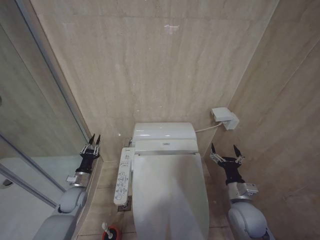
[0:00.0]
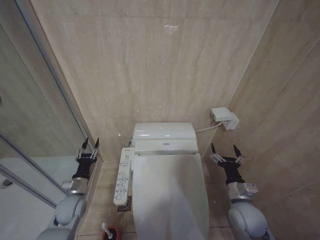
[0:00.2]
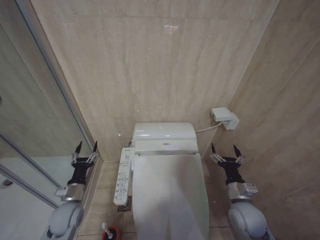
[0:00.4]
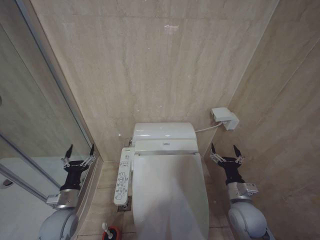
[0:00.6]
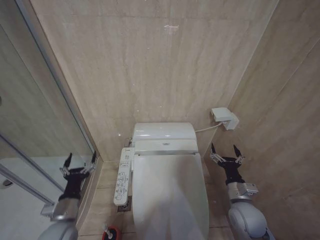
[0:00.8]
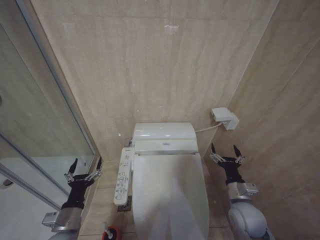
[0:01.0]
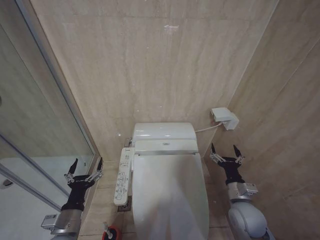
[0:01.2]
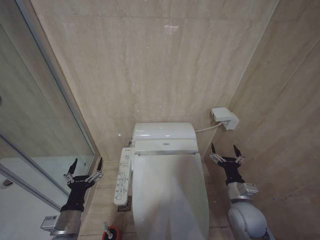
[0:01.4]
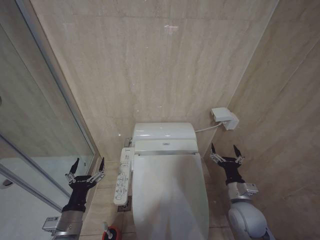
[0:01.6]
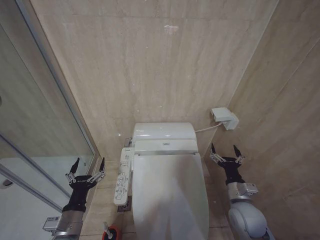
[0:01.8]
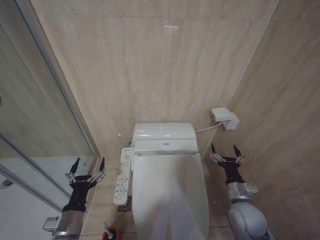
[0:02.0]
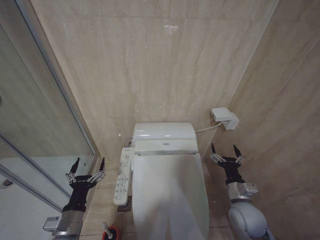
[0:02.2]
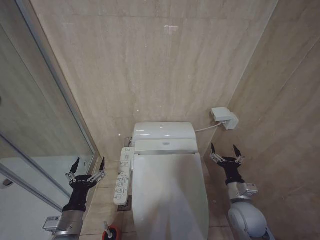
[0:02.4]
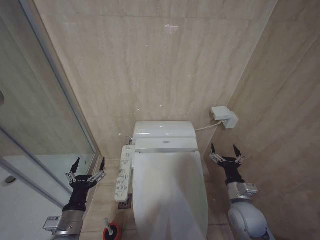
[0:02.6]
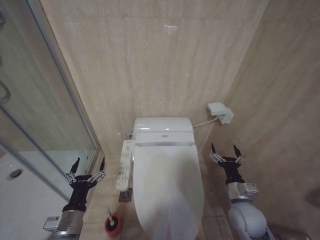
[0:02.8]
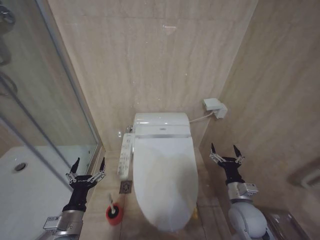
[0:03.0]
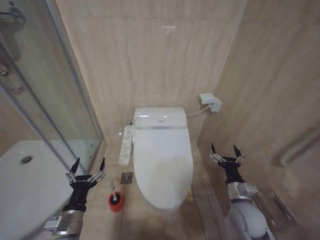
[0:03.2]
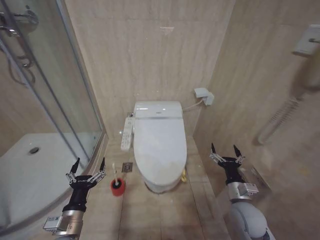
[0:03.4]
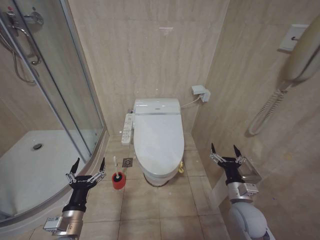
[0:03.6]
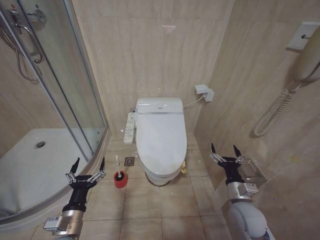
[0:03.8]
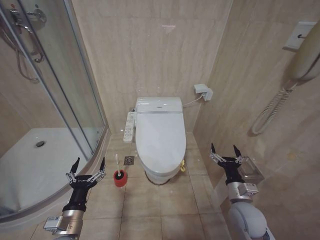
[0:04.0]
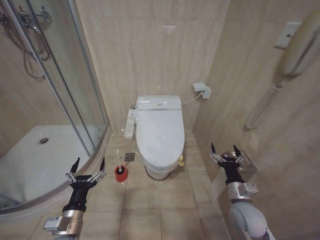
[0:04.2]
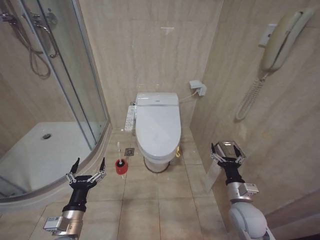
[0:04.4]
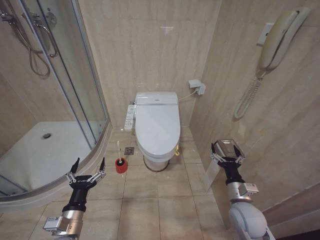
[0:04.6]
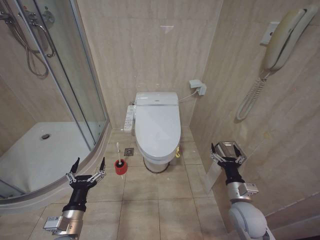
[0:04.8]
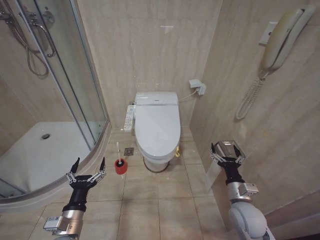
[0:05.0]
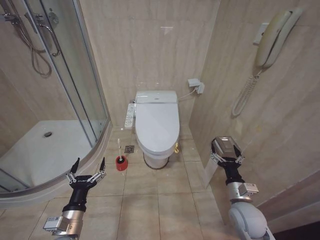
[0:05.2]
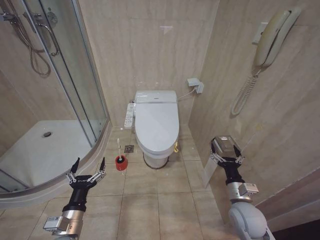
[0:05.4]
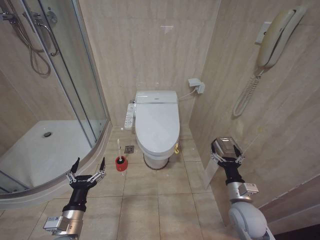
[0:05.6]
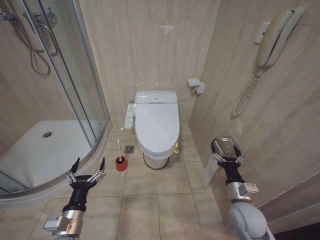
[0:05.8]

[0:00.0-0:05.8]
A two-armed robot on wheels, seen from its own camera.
Task of the whole recording: Open the toilet lid, clean the toilet bowl with a toilet brush, close the toilet lid, and flush.
0:00.0 to 0:01.4: The left gripper moves backward and upward, about 20 cm, and opens.
0:01.4 to 0:02.8: Both grippers stay about where they are.
0:04.4 to 0:05.8: Both grippers stay about where they are.

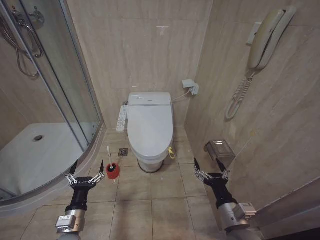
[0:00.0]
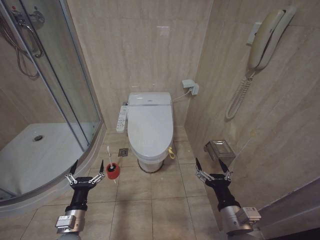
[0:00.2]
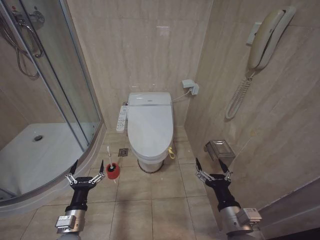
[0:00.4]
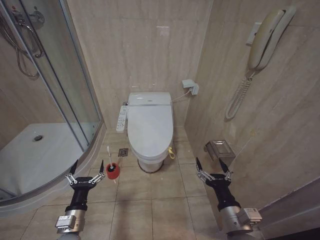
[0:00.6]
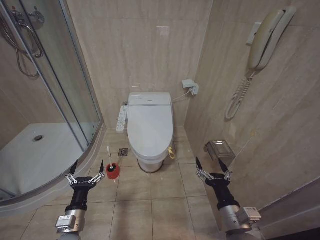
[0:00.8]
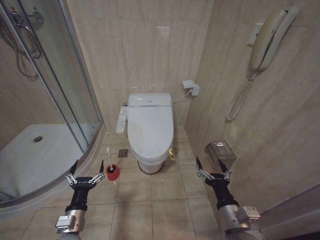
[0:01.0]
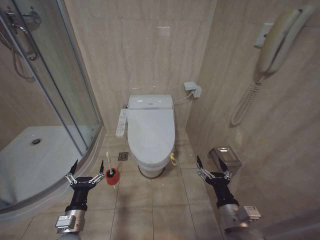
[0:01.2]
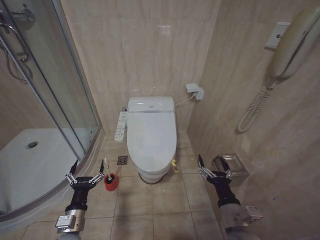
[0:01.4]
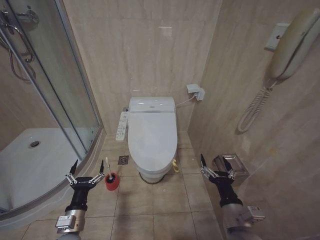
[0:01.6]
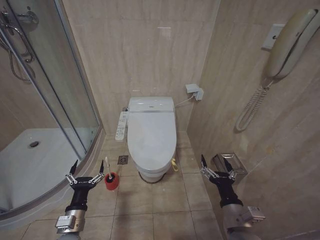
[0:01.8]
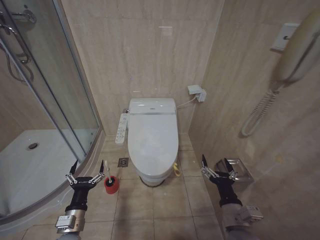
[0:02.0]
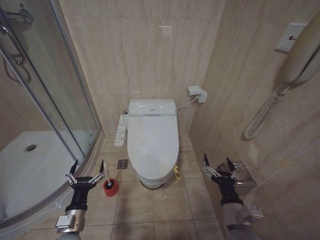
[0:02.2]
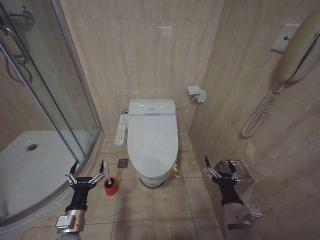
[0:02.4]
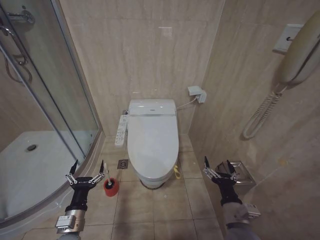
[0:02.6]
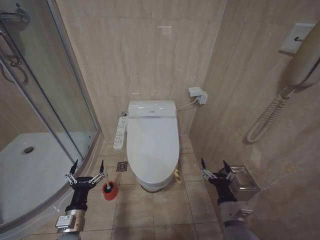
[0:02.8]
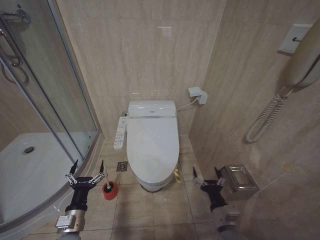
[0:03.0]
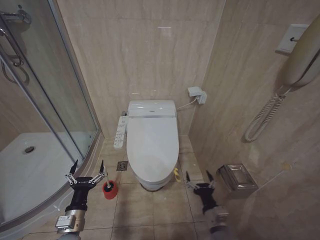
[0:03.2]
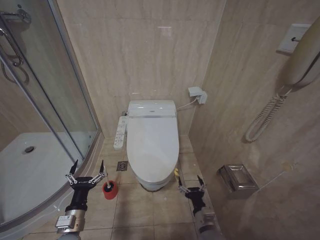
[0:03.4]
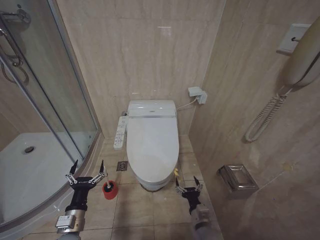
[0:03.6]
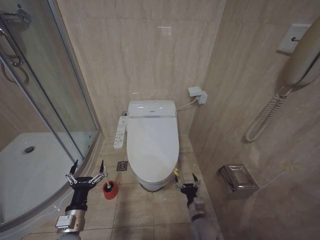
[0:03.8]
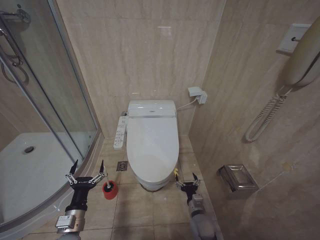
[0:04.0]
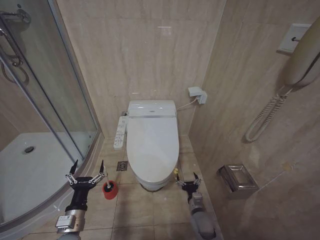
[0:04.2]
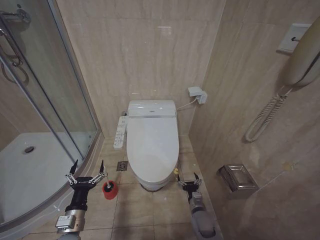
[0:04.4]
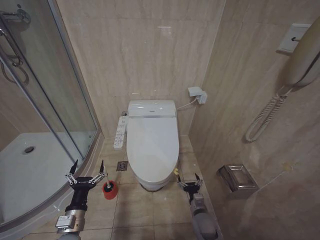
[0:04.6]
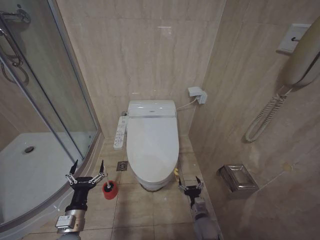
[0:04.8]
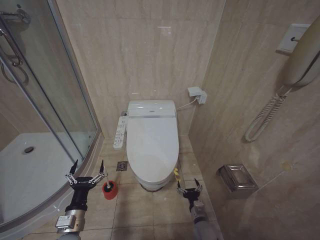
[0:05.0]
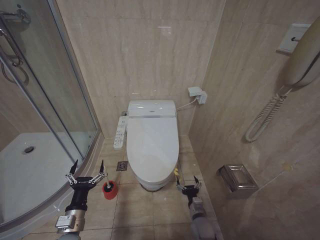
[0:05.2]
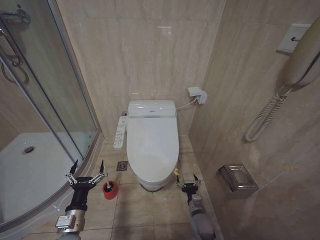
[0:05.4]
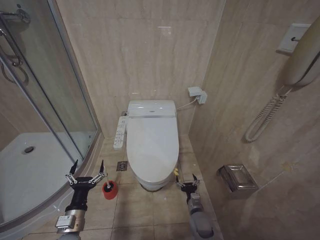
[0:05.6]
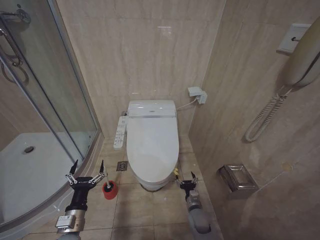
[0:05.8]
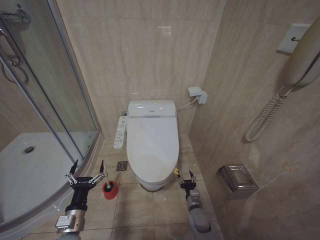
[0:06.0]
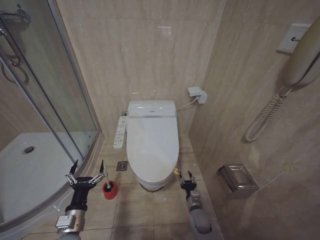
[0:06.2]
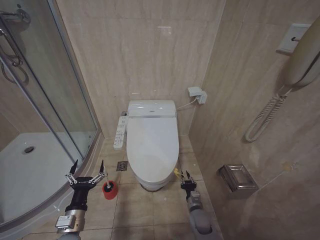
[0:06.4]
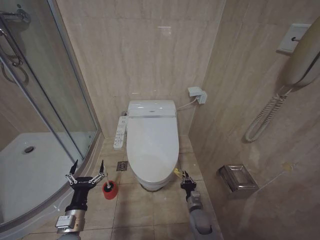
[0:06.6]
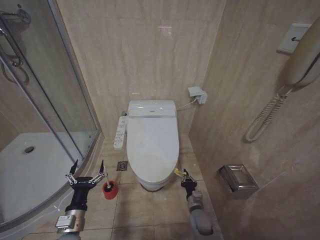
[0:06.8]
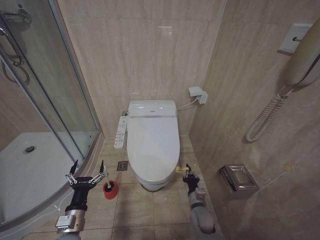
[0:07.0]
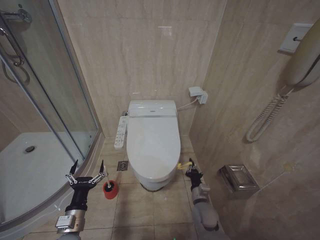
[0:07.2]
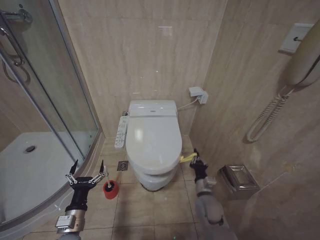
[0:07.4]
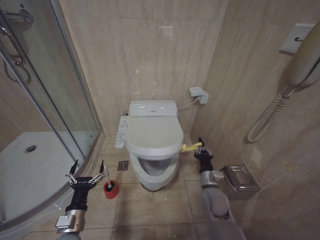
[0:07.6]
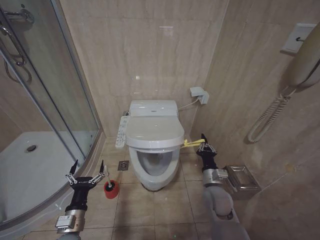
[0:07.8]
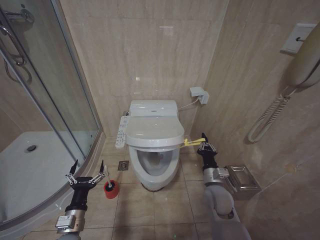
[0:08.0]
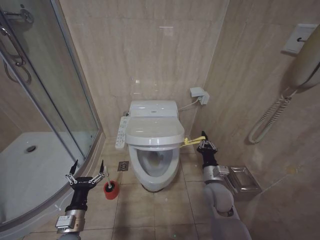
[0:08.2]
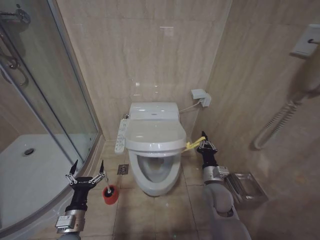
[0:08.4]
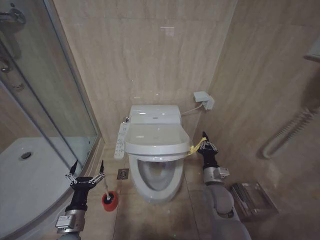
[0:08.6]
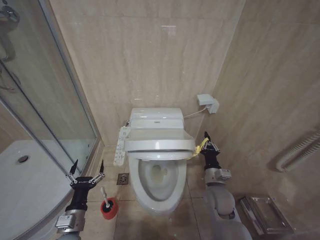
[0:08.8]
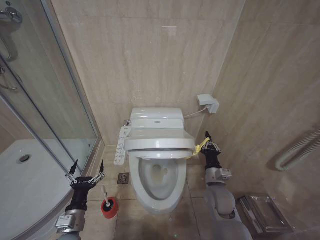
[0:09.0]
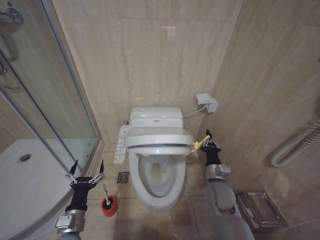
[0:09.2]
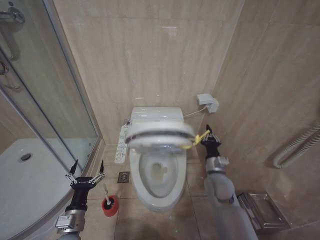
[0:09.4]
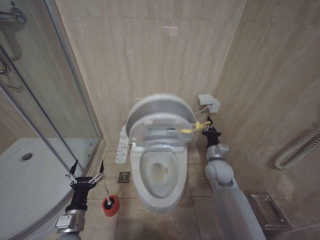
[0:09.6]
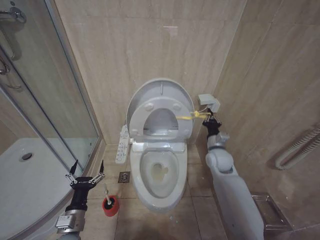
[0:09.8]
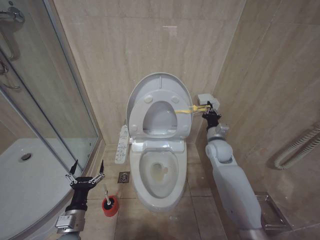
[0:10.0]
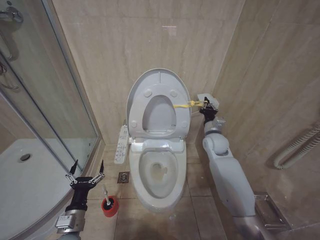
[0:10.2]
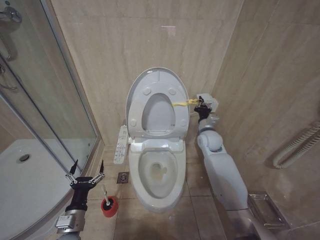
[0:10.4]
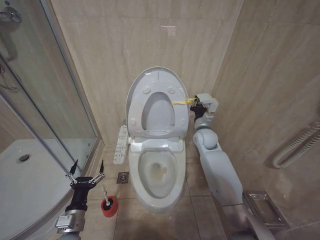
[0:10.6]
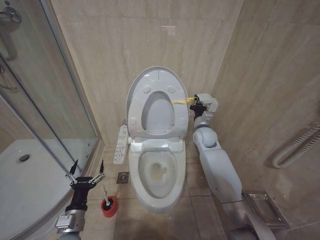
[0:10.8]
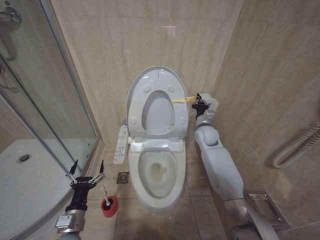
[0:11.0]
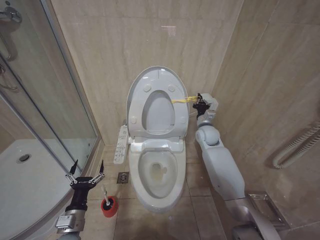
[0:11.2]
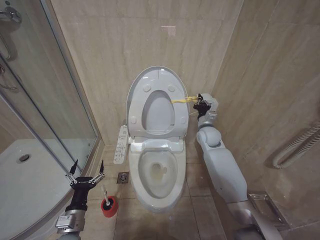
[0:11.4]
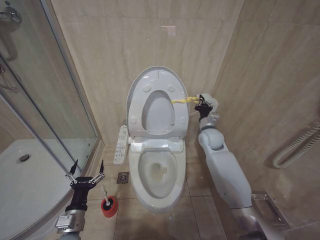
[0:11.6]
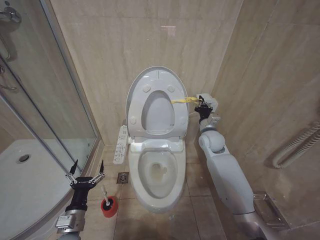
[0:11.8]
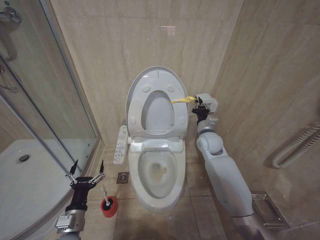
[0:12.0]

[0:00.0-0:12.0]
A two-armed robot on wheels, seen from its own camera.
Task of the whole recording: Open the toilet lid, clean the toilet bowl with a toilet brush, close the toilet lid, and flush.
0:01.6 to 0:03.0: The right gripper shifts some 5 cm downward.
0:03.0 to 0:04.4: The right gripper travels downward and forward by some 20 cm.
0:06.0 to 0:07.6: The right gripper shifts approximately 15 cm upward, and closes.
0:09.0 to 0:10.4: The right gripper shifts some 20 cm forward and upward.
0:10.4 to 0:12.0: The grippers move only a little.

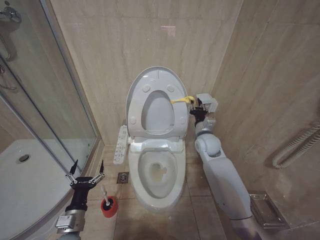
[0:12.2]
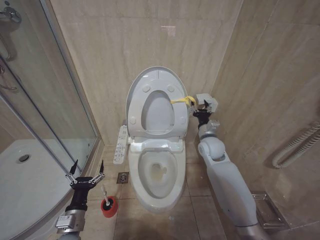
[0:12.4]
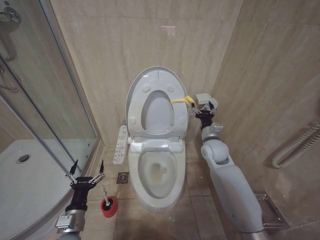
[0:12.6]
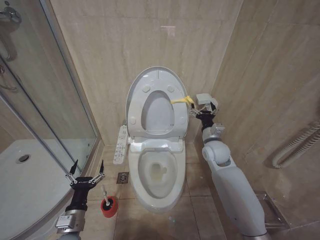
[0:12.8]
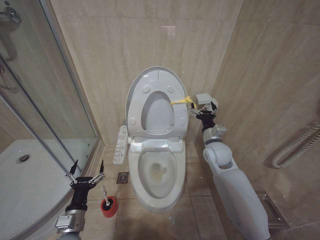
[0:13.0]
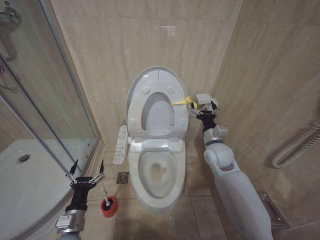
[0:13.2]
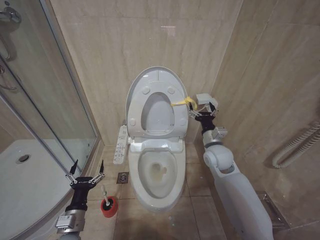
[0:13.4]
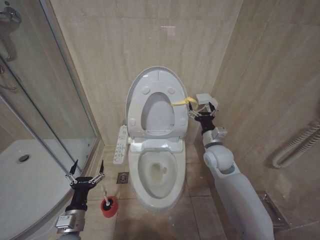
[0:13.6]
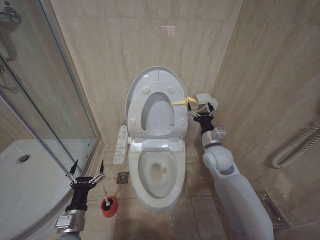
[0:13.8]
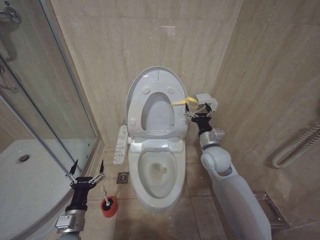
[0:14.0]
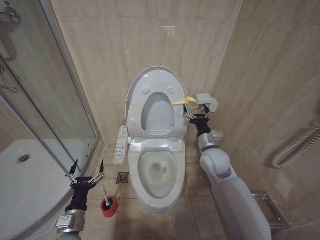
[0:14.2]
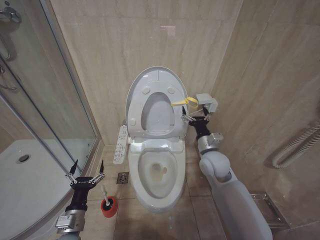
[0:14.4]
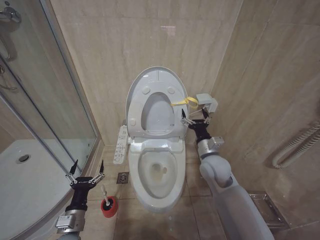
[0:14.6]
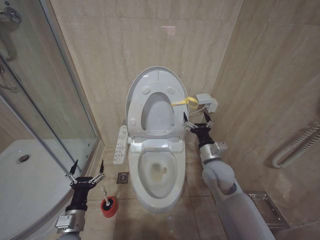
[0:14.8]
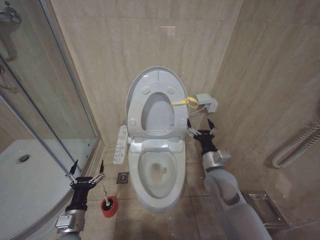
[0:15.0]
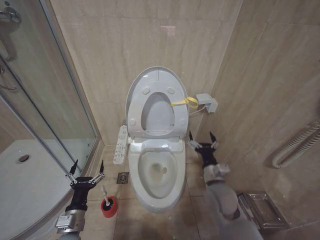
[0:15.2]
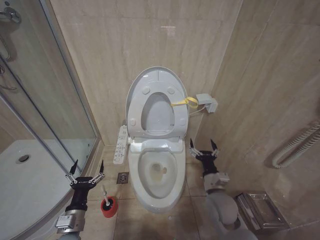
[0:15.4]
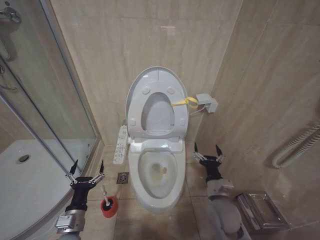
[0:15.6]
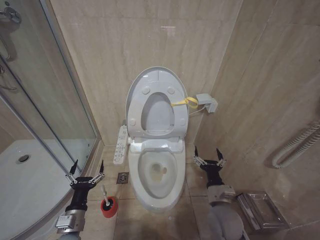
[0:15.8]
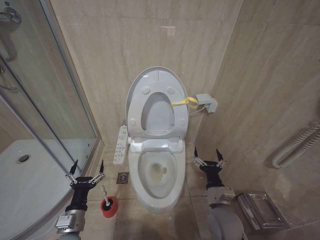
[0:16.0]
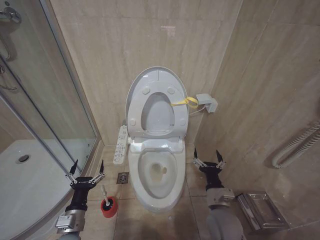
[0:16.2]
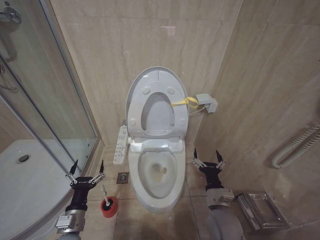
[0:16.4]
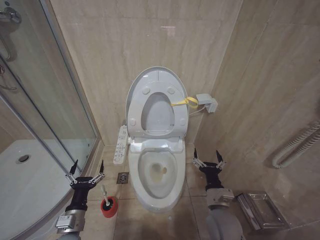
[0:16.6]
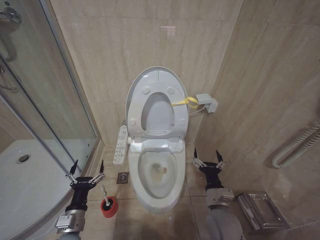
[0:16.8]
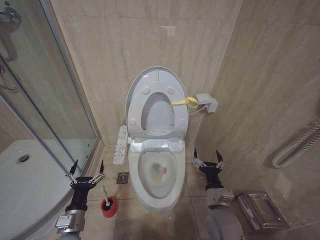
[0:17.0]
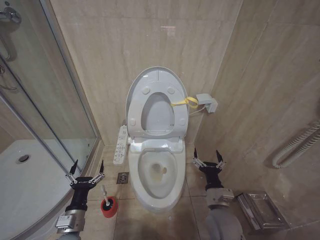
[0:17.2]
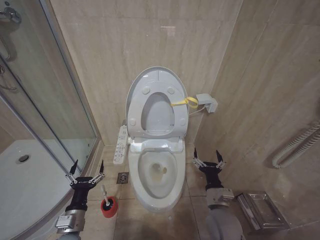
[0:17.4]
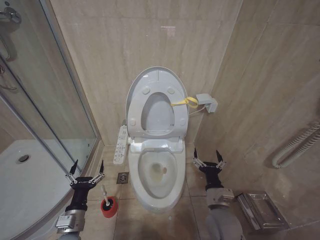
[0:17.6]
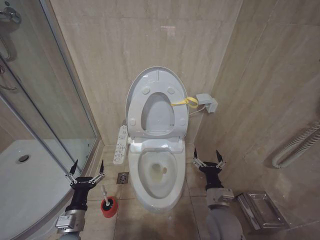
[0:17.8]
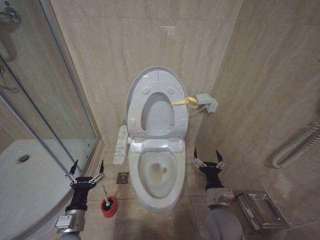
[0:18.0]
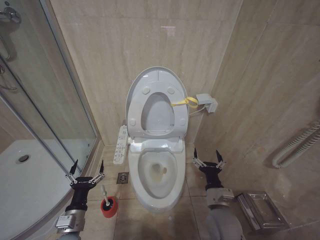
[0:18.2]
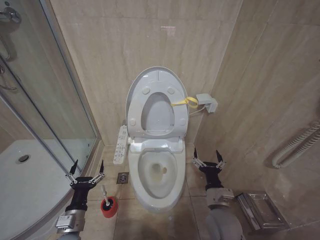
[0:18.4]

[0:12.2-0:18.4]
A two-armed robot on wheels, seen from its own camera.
Task of the whole recording: Open the toilet lid, clean the toilet bowl with a toilet brush, close the toilet lid, and flush.
0:12.2 to 0:13.8: The right gripper shifts about 5 cm backward, and opens up.
0:13.8 to 0:15.4: The right gripper heads backward and downward, covering approximately 15 cm.
0:15.4 to 0:16.8: The right gripper moves roughly 5 cm.
0:16.8 to 0:18.4: The two grippers keep their place.
